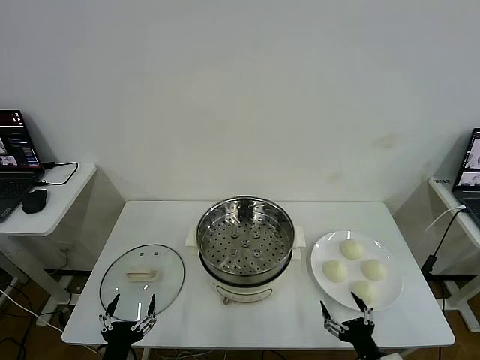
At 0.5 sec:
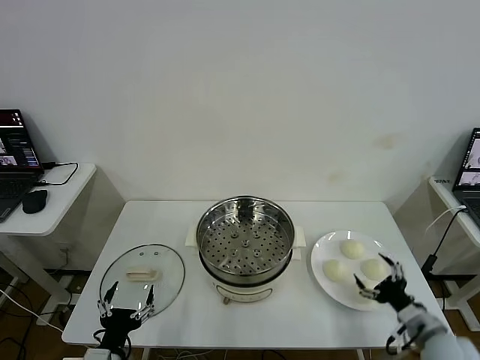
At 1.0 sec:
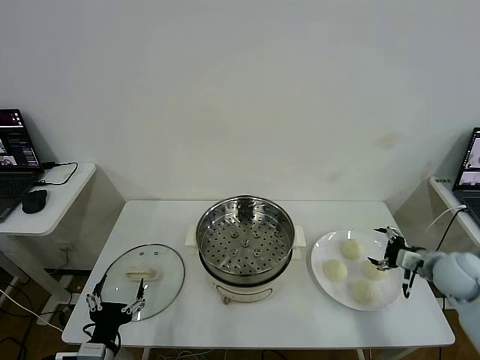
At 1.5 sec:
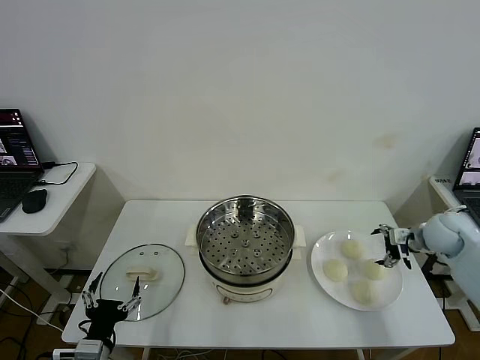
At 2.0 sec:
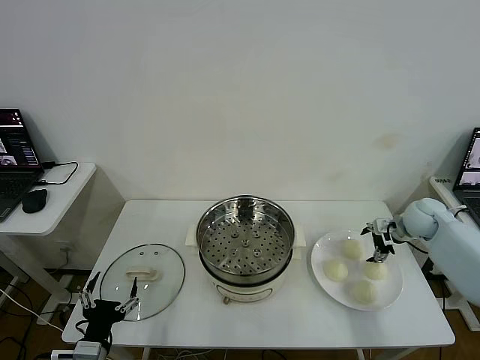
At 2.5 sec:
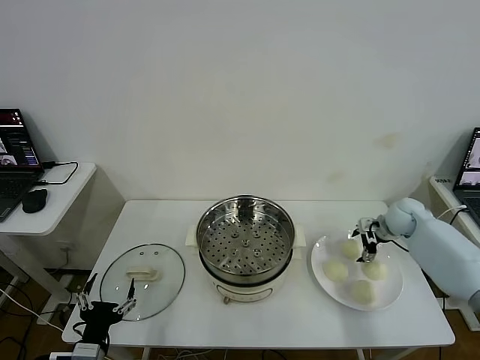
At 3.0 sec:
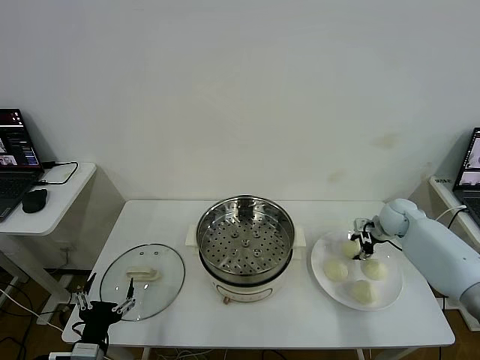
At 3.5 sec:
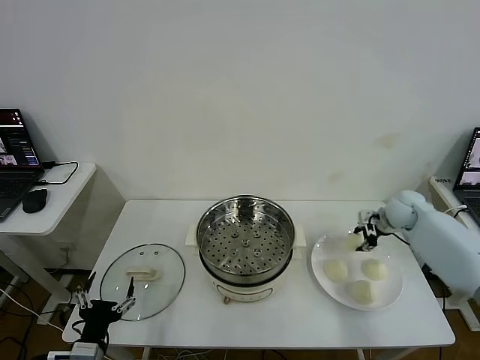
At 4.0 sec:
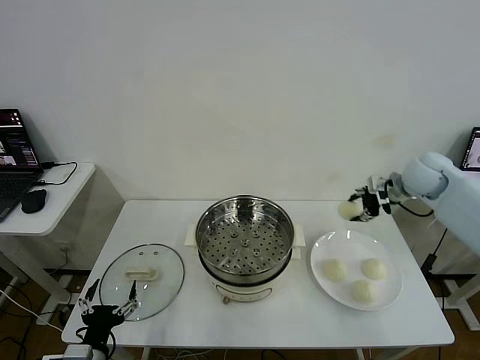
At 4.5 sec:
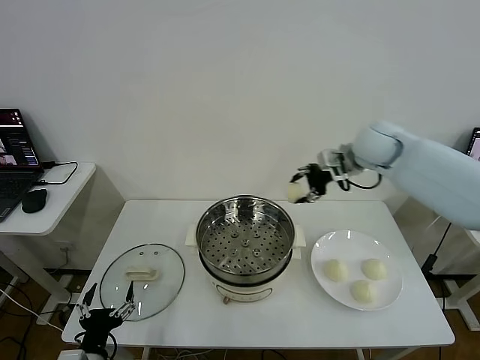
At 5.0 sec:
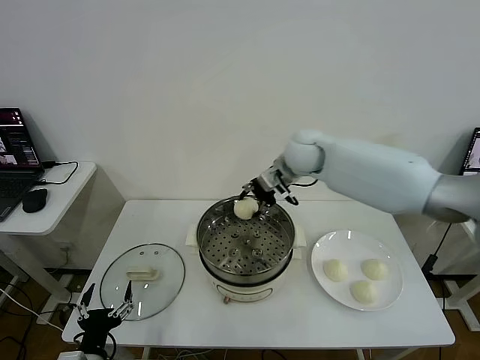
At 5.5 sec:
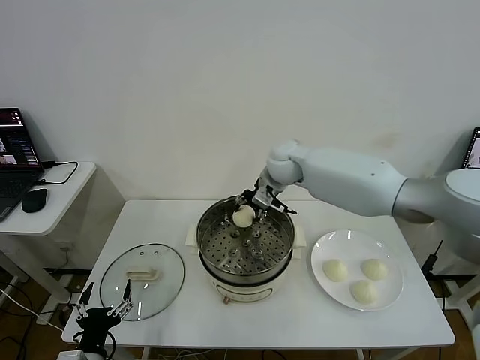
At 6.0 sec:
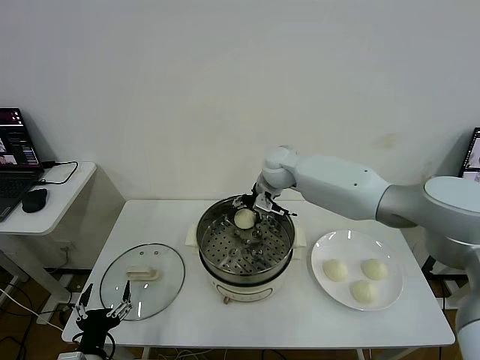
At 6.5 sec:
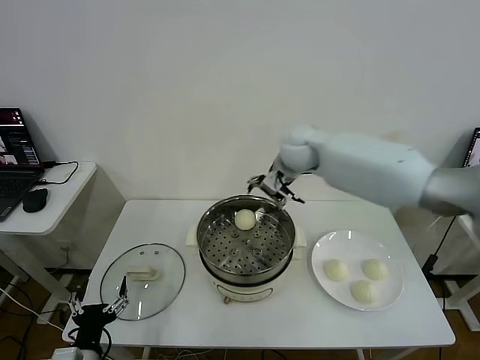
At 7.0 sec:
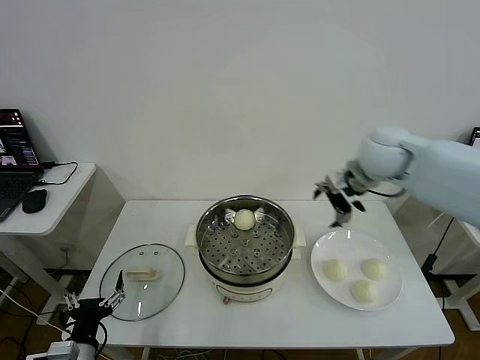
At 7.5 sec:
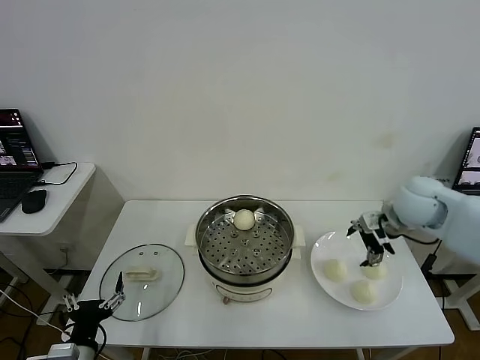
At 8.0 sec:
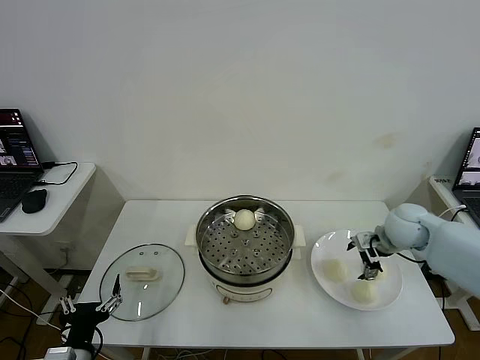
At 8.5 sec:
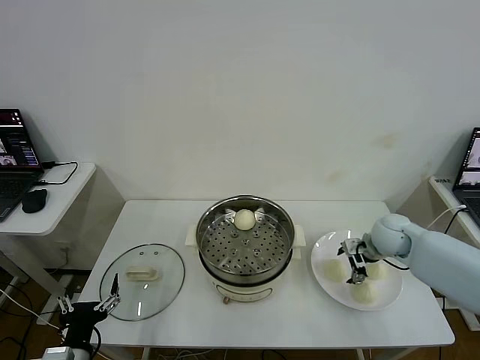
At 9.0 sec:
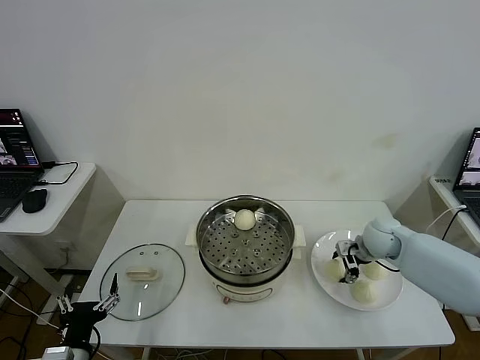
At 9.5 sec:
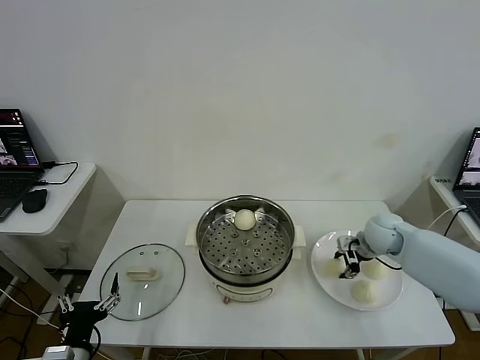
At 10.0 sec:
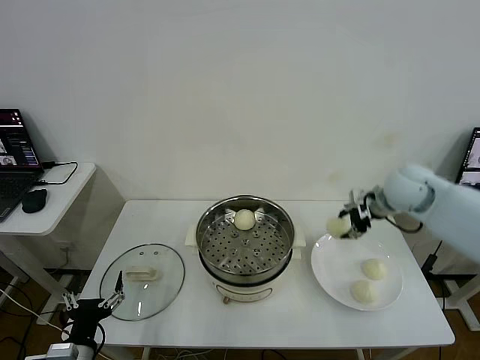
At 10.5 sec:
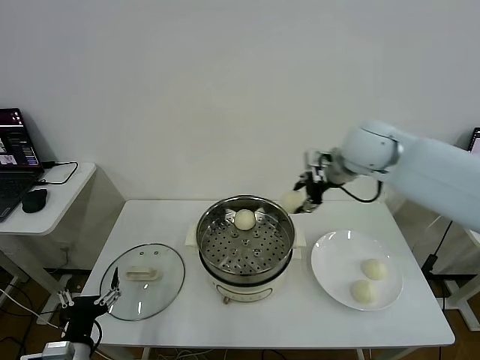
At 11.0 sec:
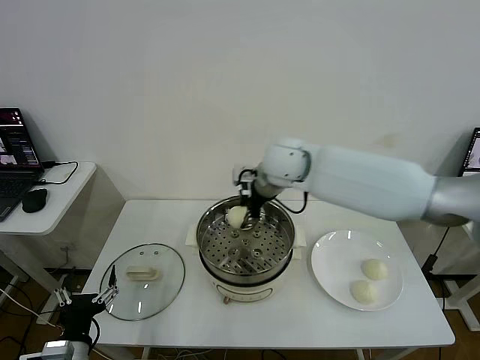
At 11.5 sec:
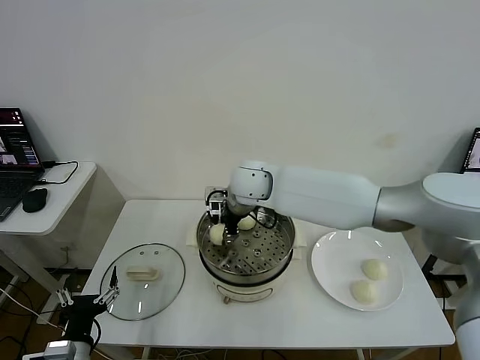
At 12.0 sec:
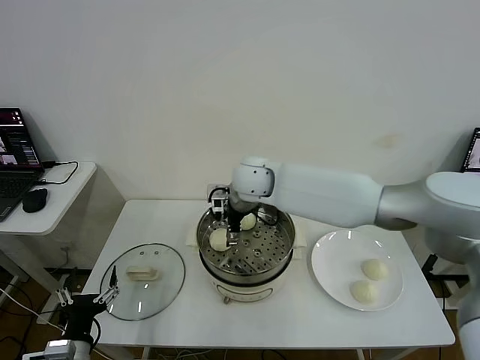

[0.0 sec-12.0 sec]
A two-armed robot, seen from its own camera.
Task of the whole recording: take steamed baozi put them in steamer then cover it.
Step, 0.0 sec to 3.0 sec: Grasp the baozi in the plate with right gripper.
Step, 3.5 sec to 6.0 sec: Place the baozi on the steamer with right gripper.
Step, 6.5 sec to 9.0 sec: Grasp the baozi in the plate with right gripper.
2.0 sec to 4.0 sec: The right gripper travels upward and to the left by about 20 cm, and closes up.
4.0 sec to 6.0 sec: The right gripper travels to the left by about 30 cm, and opens its fingers.
6.0 sec to 8.0 sec: The right gripper shifts roughly 30 cm to the right and backward.
8.0 sec to 10.0 sec: The right gripper heads upward, covering approximately 15 cm, and closes its fingers.
10.0 sec to 12.0 sec: The right gripper heads to the left, covering roughly 30 cm, and opens up.

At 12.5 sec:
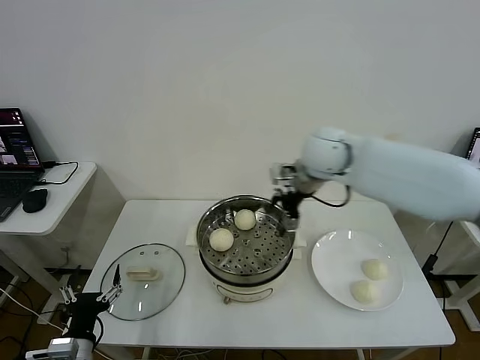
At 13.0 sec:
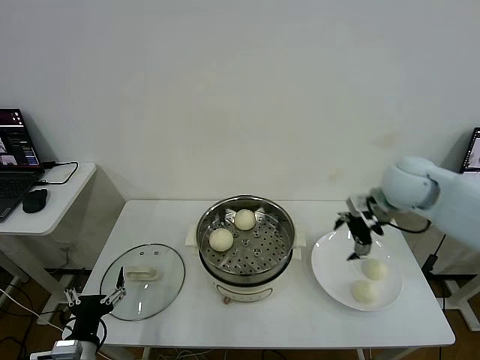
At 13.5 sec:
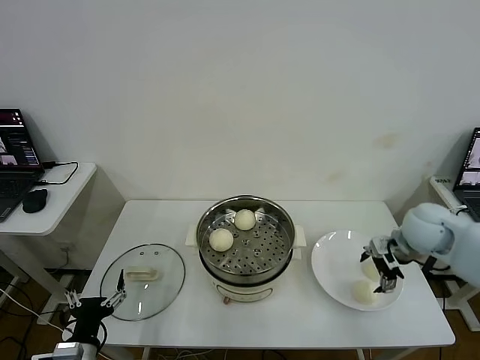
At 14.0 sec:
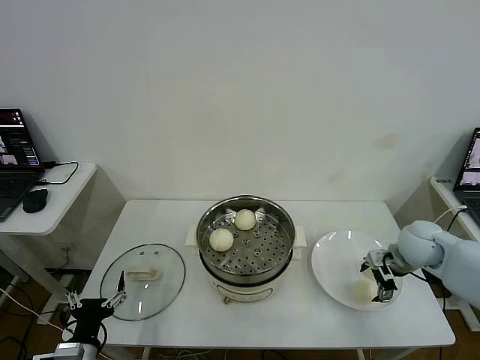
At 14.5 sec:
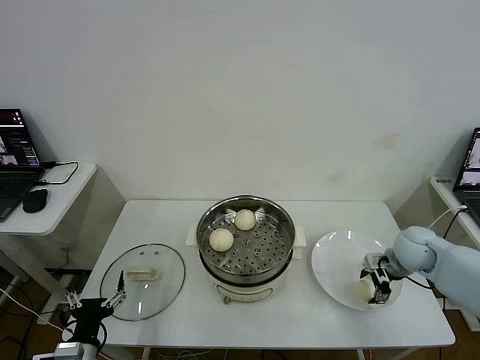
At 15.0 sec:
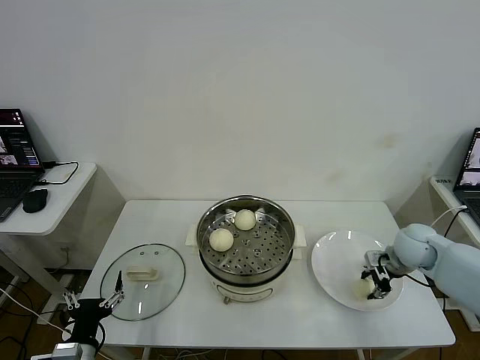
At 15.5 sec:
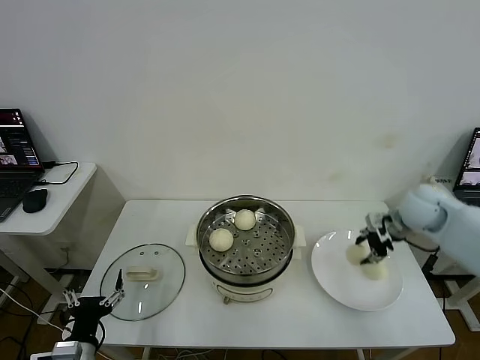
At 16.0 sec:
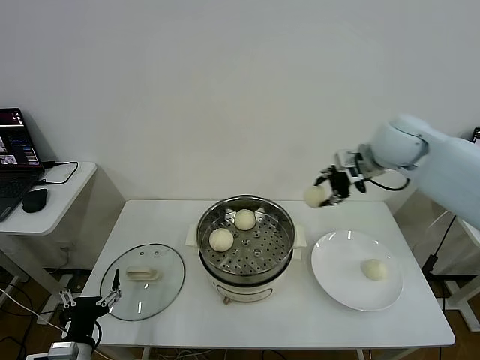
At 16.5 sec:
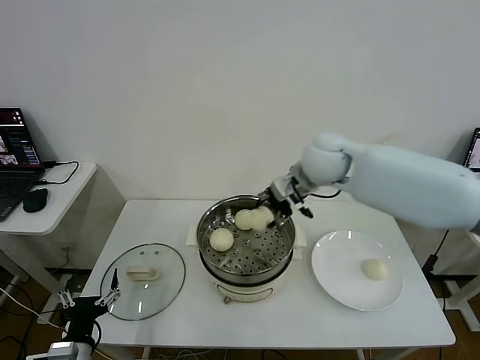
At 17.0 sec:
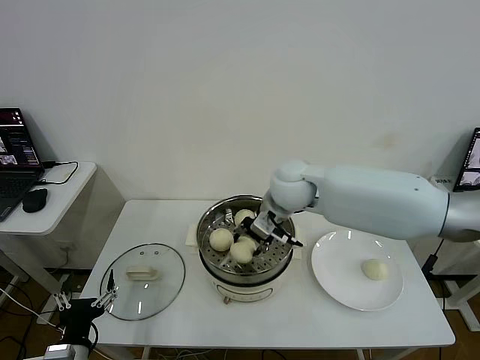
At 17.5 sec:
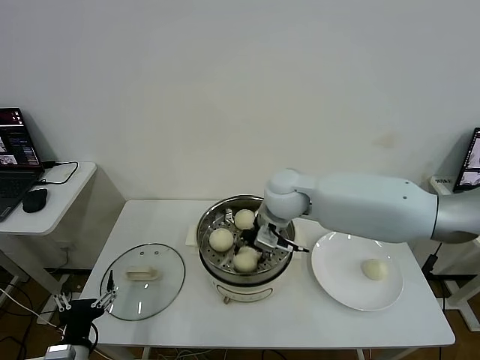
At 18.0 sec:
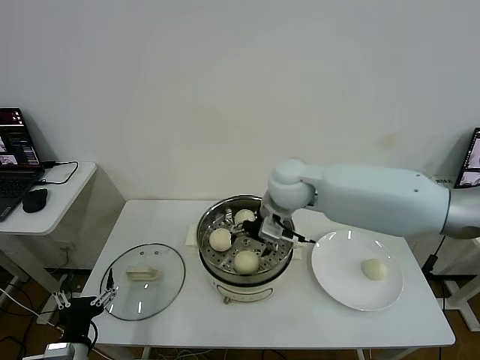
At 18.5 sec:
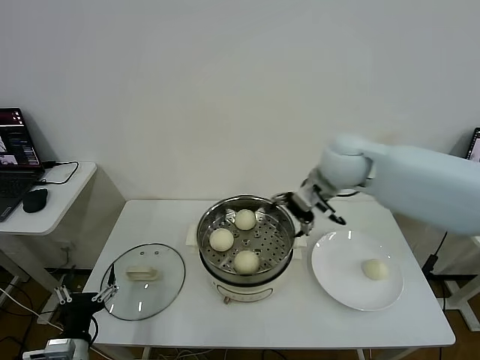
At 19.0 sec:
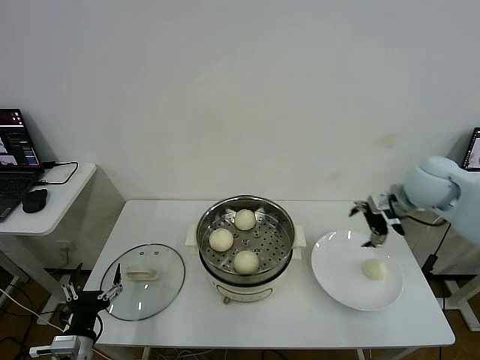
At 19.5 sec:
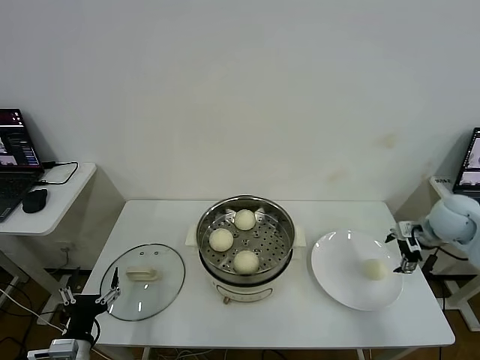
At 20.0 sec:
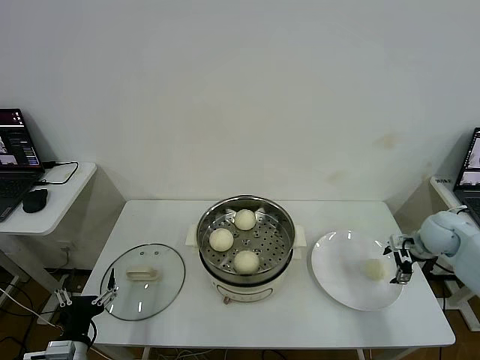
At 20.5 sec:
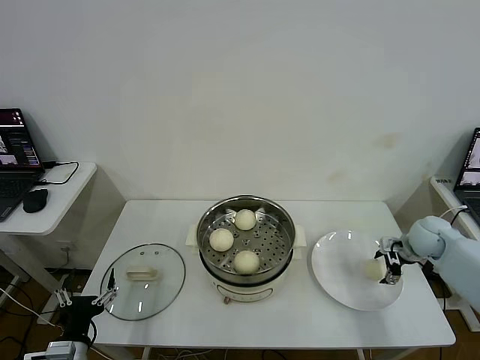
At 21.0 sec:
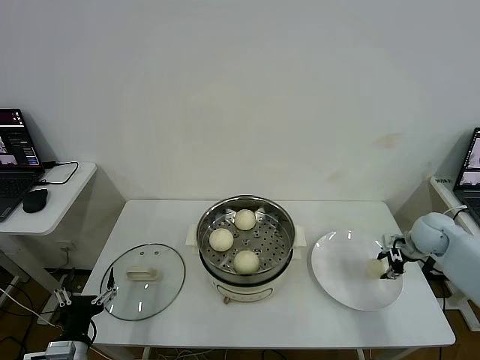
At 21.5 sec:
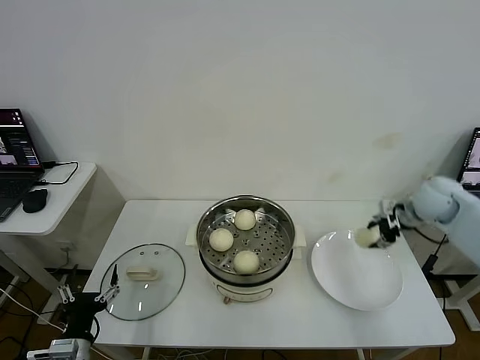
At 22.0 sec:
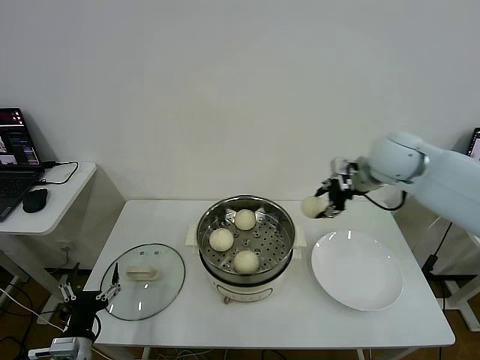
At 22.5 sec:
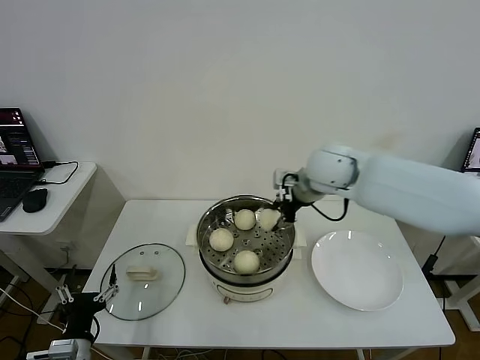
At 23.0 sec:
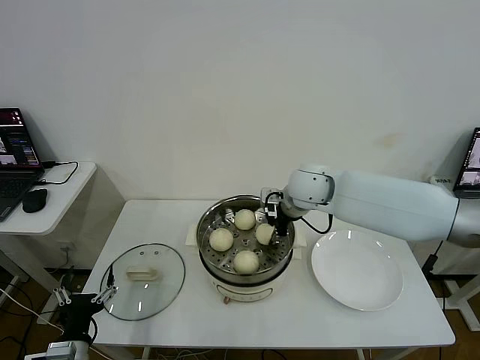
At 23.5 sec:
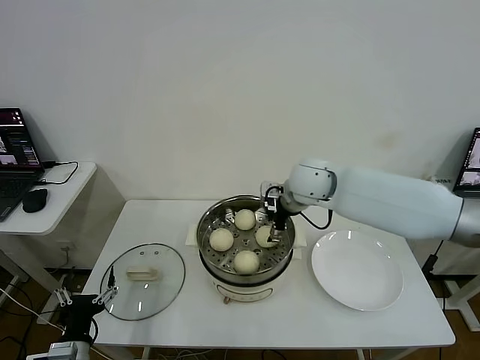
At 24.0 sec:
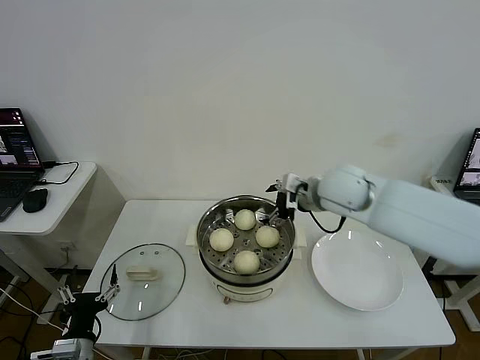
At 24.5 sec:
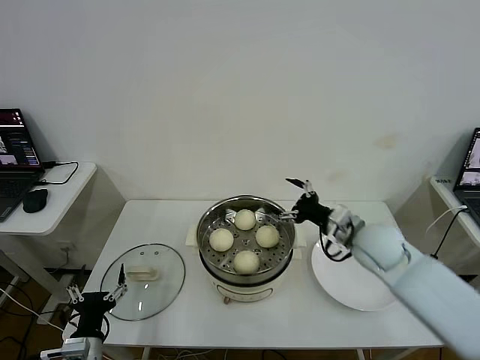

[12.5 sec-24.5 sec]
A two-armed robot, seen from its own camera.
Task of the whole recording: take steamed baozi put them in steamer then cover it.
Step, 12.5 sec to 14.5 sec: Grasp the baozi in the plate with right gripper.
Step, 15.0 sec to 17.5 sec: Place the baozi on the steamer with right gripper.
Step, 18.0 sec to 21.0 sec: Grasp the baozi in the plate with right gripper.
Step, 21.5 sec to 23.5 sec: Place the baozi on the steamer with right gripper.
12.5 sec to 14.5 sec: The right gripper travels downward and to the right by about 30 cm, and closes its fingers.
14.5 sec to 16.5 sec: The right gripper moves to the left and upward, about 30 cm, and closes.
16.5 sec to 18.5 sec: The right gripper is displaced to the right by some 5 cm, and opens.
18.5 sec to 20.5 sec: The right gripper is displaced to the right and downward by about 35 cm.
20.5 sec to 22.5 sec: The right gripper travels to the left and upward by about 35 cm, and closes up.
22.5 sec to 24.5 sec: The right gripper heads downward, to the right and backward, covering about 20 cm, and opens its fingers.

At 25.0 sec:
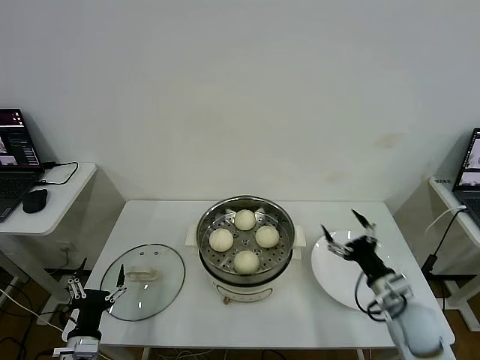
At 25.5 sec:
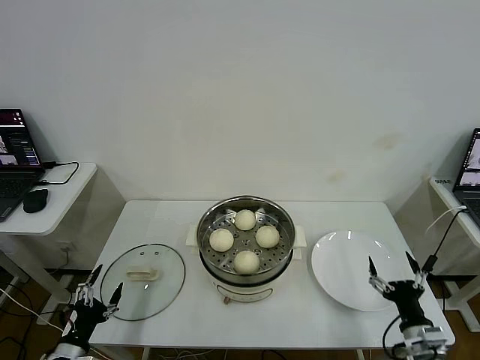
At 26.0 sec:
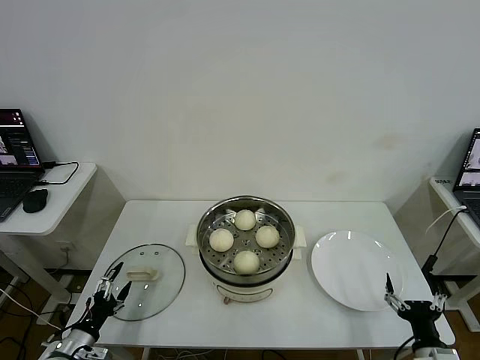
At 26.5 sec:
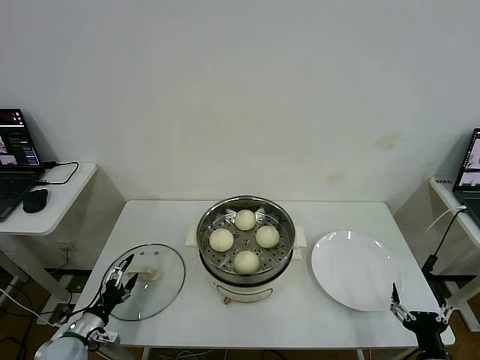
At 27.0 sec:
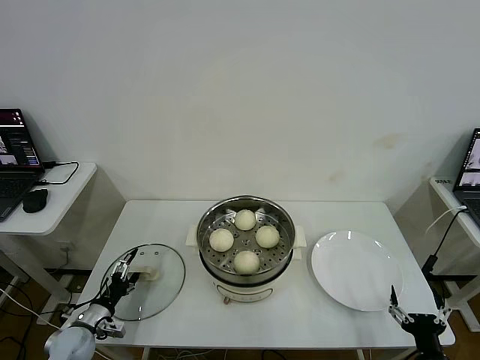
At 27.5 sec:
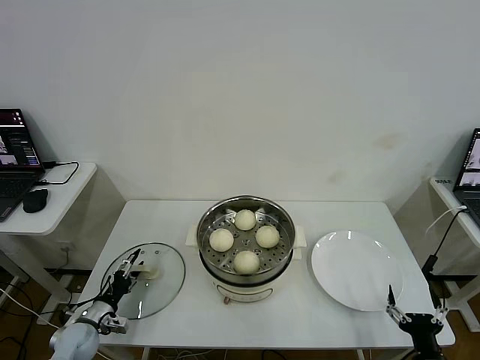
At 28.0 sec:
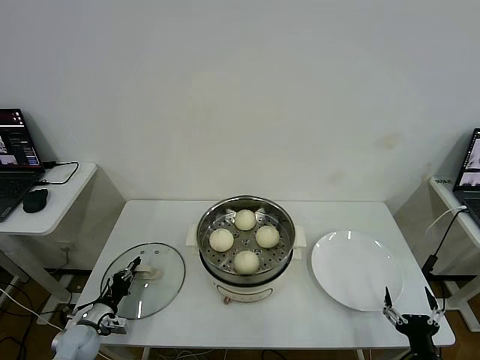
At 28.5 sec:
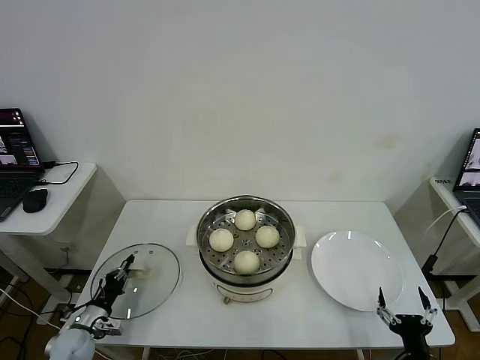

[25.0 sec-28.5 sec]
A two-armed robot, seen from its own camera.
Task of the whole recording: take steamed baozi put them in steamer then cover it.
Step, 25.0 sec to 28.0 sec: Grasp the pot lid with left gripper.
25.0 sec to 27.0 sec: The left gripper shifts roughly 15 cm forward, to the left and downward. Meanwhile the right gripper travels backward and downward by about 20 cm.
27.0 sec to 28.5 sec: The left gripper closes up.
